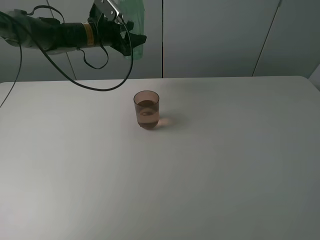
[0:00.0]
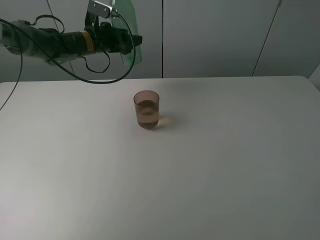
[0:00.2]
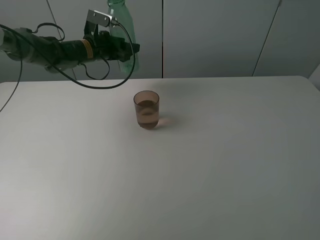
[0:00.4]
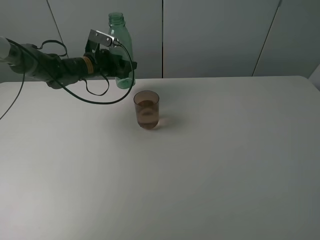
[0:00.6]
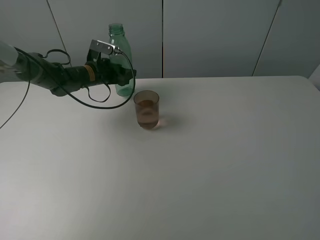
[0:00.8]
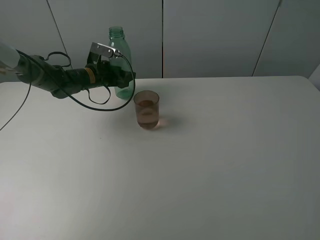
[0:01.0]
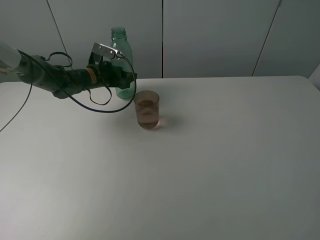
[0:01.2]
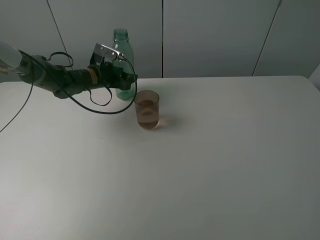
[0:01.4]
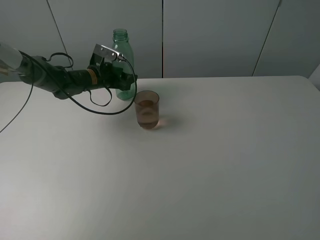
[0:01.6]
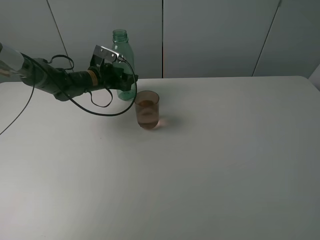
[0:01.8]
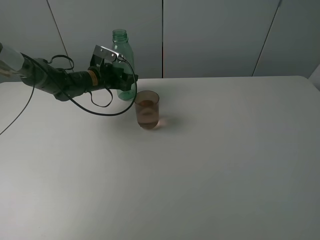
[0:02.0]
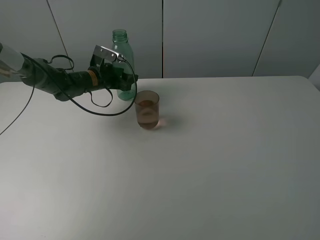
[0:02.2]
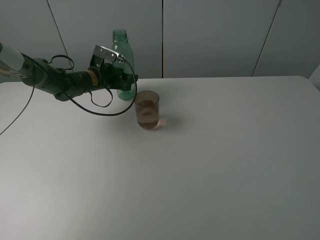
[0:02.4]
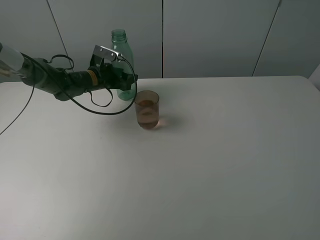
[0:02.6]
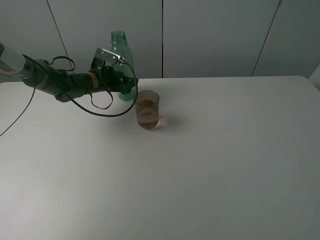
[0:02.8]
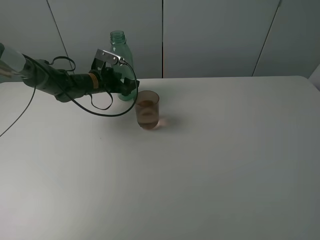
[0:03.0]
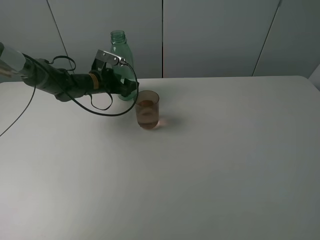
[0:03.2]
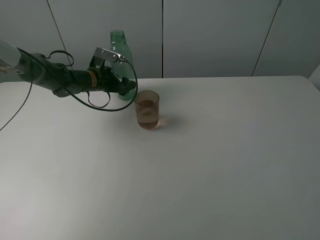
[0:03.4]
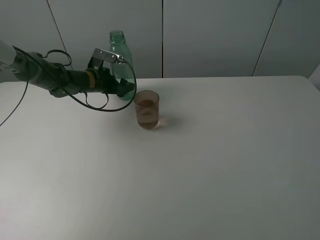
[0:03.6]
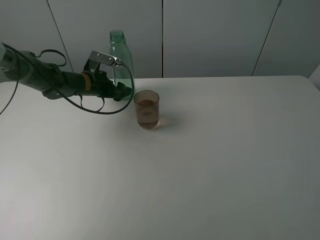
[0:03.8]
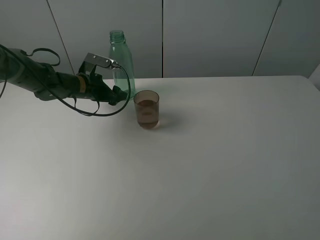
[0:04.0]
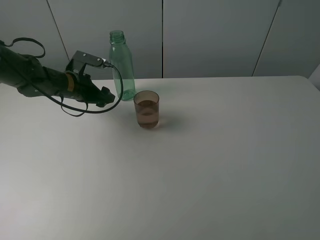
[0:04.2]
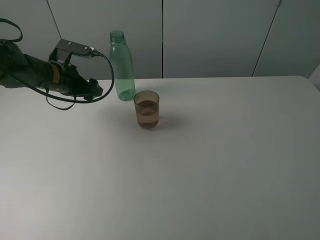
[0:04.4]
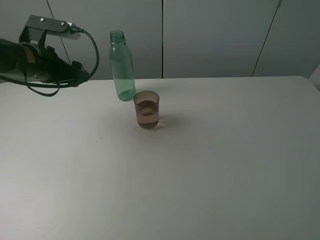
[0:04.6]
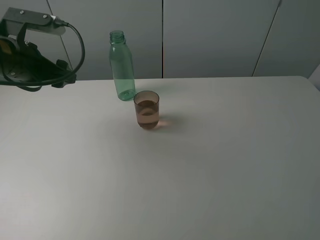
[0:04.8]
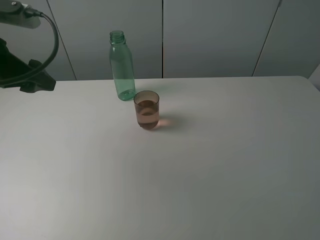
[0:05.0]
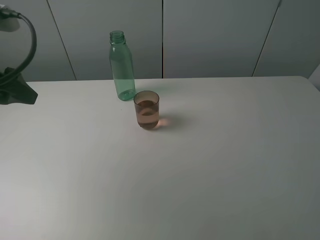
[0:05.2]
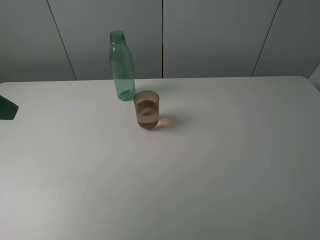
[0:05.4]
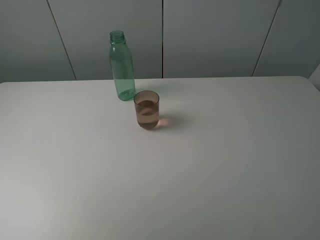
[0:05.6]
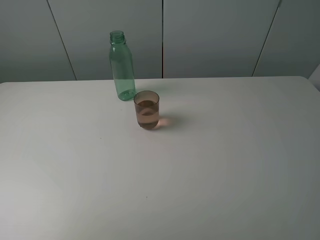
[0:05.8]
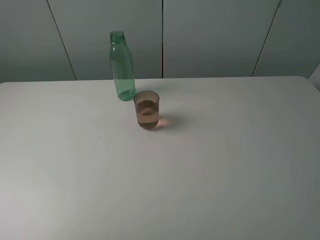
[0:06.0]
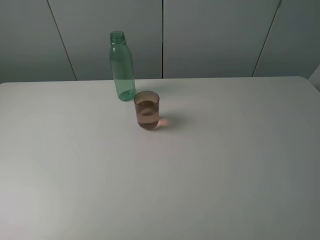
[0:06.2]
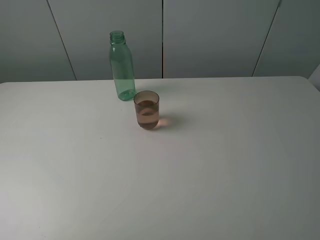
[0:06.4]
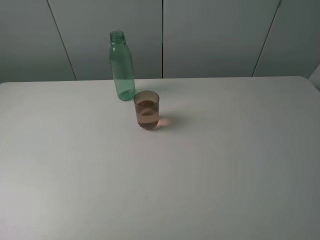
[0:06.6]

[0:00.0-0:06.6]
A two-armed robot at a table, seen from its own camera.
Task of the whole recording: pick up the bottle filled with water and pour it into the pink cup.
Step, 0:00.0 to 0:03.6: Place the green bottle with the left gripper.
0:00.0 to 0:01.6: The left gripper heads downward, covering roughly 10 cm.
0:01.6 to 0:03.2: The left gripper opens its fingers.
0:03.2 to 0:05.0: The left gripper heads backward, upward and to the left, covering about 30 cm.
0:05.0 to 0:06.6: The left gripper shifts approximately 25 cm backward.

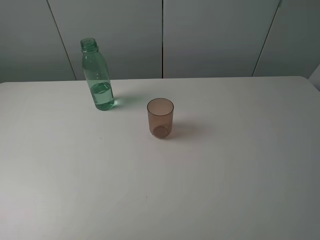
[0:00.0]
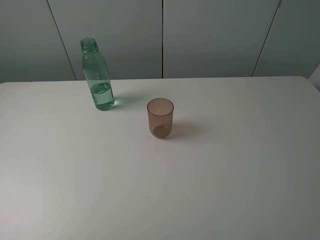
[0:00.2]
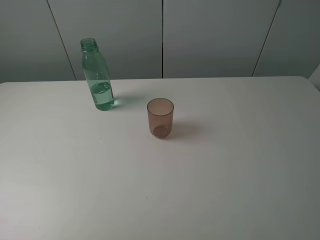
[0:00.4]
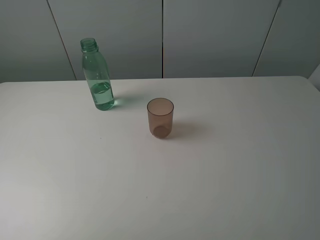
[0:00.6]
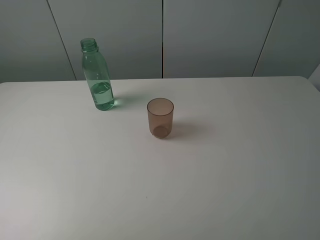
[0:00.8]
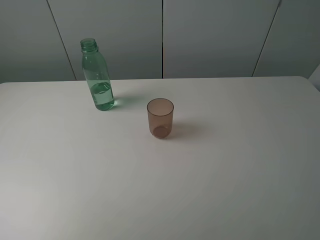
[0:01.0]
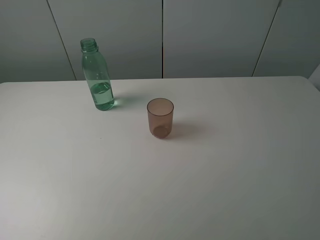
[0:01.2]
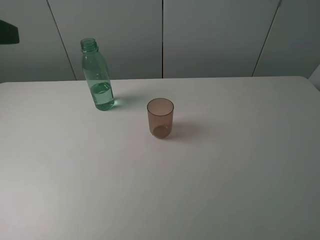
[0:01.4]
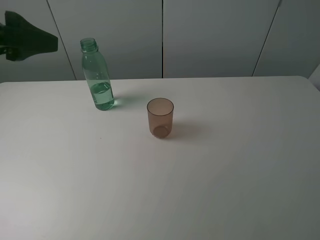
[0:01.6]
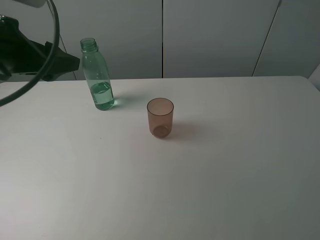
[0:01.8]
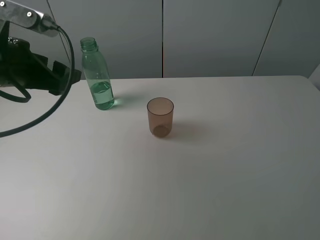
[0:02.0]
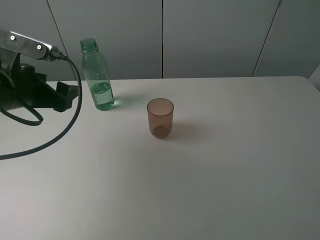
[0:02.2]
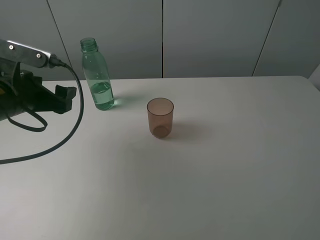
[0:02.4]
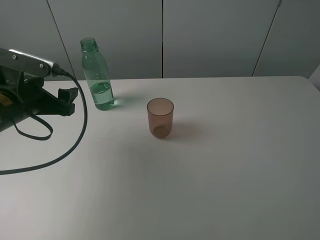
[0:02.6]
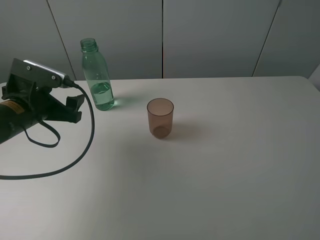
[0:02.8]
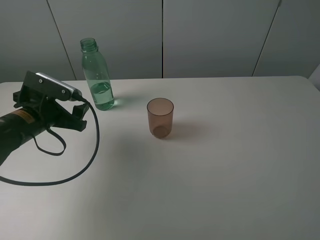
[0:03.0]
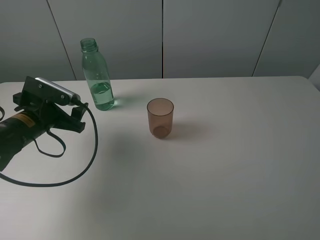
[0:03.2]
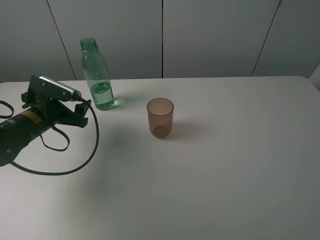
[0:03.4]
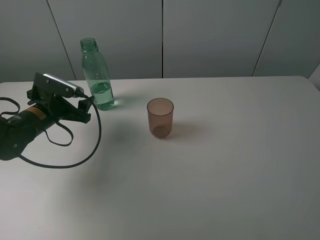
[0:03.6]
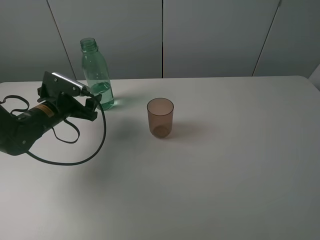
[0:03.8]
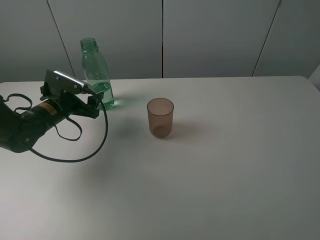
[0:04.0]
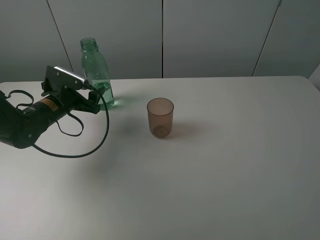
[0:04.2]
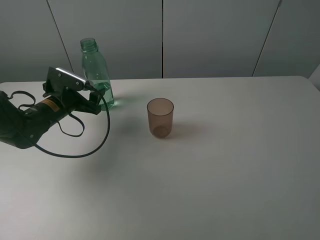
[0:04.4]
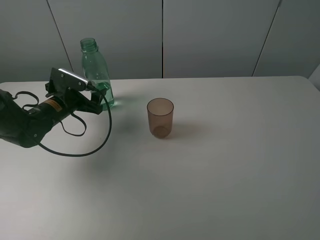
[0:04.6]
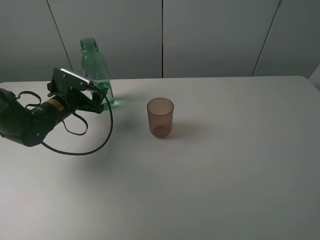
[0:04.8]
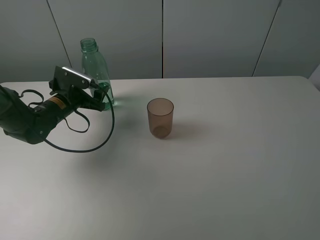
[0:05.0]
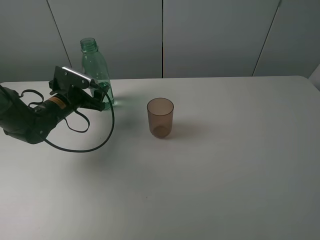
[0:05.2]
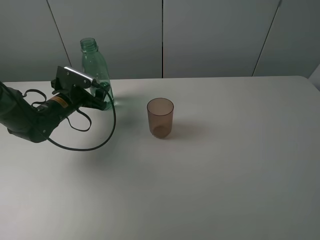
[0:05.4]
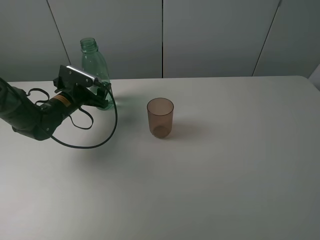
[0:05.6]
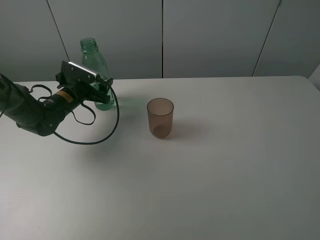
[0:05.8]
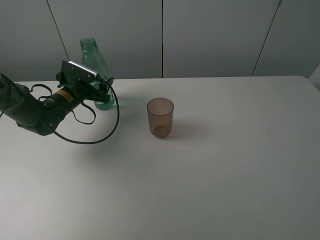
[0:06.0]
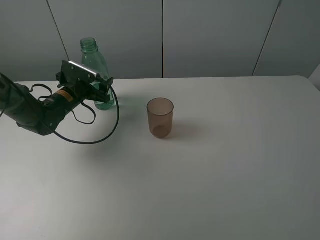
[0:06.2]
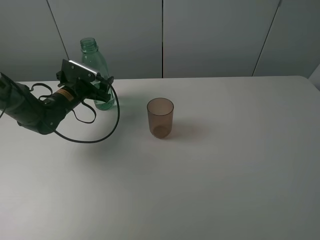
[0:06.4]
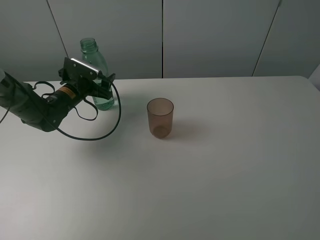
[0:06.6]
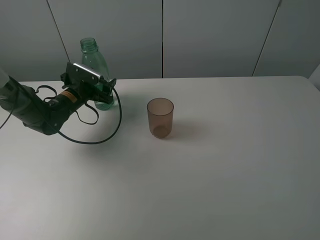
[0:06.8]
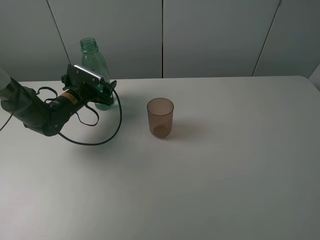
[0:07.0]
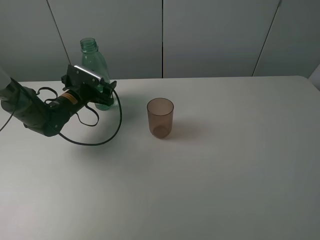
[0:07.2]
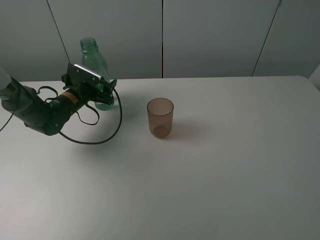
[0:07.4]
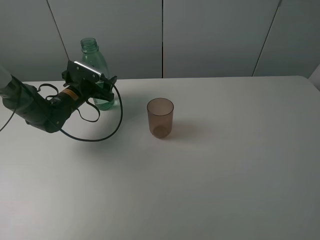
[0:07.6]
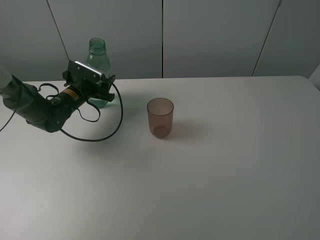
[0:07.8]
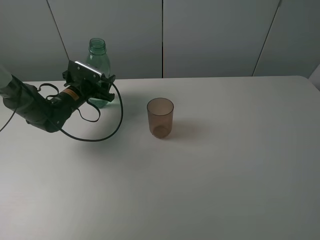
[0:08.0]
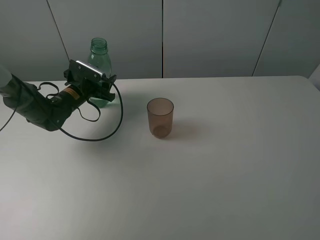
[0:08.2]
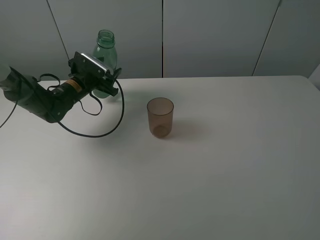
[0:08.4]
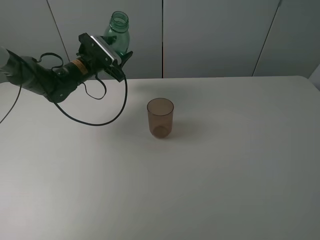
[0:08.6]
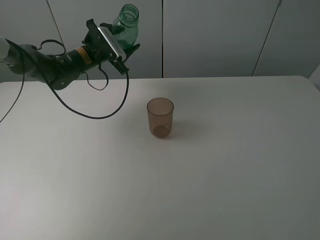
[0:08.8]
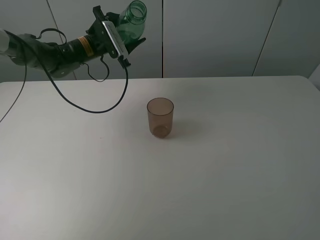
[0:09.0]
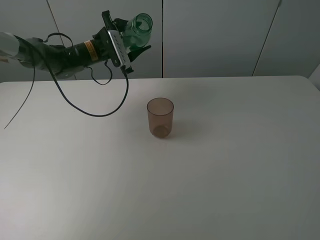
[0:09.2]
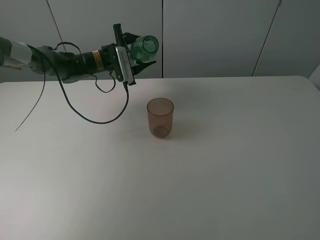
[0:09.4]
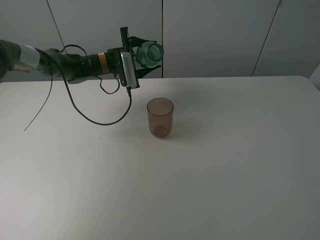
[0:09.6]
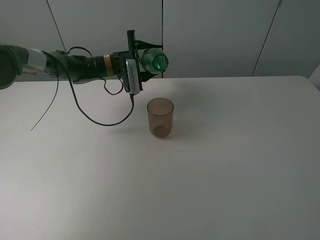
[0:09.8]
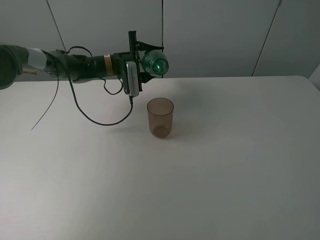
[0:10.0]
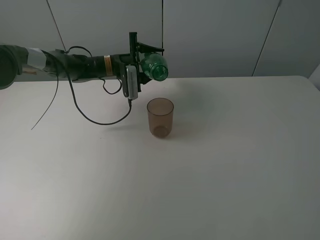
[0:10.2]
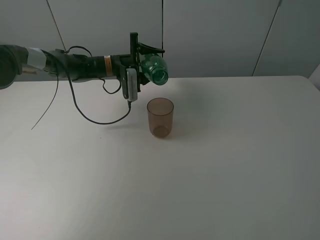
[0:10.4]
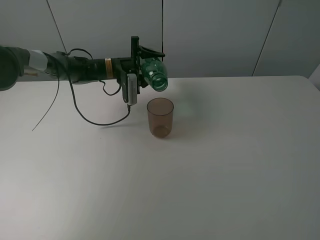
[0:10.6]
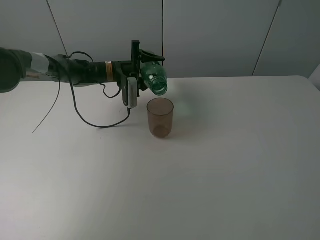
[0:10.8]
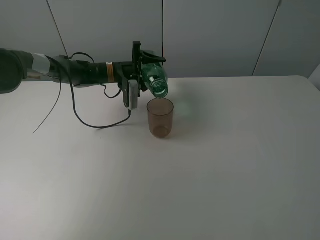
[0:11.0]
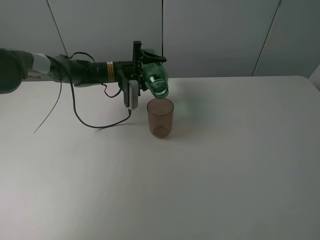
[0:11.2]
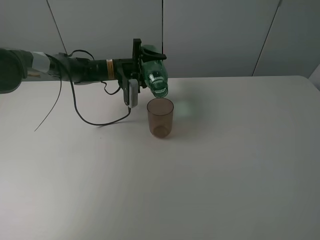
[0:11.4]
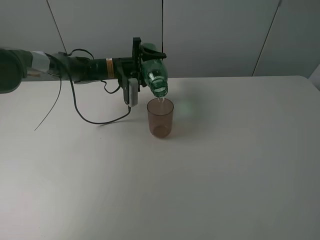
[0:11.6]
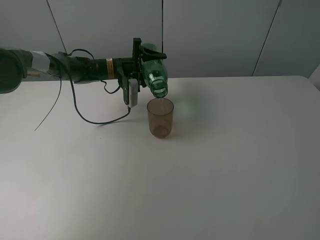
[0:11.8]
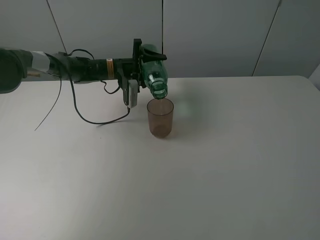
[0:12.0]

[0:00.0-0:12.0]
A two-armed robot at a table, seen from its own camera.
Task of the whole recording: pick up the bottle filled with water and pour it into the pink cup.
Step, 0:00.0 to 0:08.2: Grasp the green bottle with the left gripper.
0:00.0 to 0:01.6: The left gripper goes approximately 20 cm forward.
0:01.6 to 0:03.0: The left gripper is displaced downward by about 20 cm.
0:03.0 to 0:04.4: The left gripper goes approximately 10 cm forward.
0:04.4 to 0:06.0: The left gripper shifts by roughly 5 cm.
0:06.0 to 0:07.6: The grippers stay close to where they were, moving slightly.
0:07.6 to 0:09.0: The left gripper goes some 15 cm upward, forward and to the right, and closes.
0:09.0 to 0:10.4: The left gripper shifts roughly 5 cm downward.
0:10.4 to 0:12.0: The grippers stay close to where they were, moving slightly.

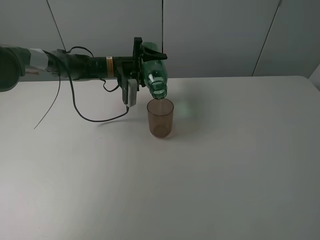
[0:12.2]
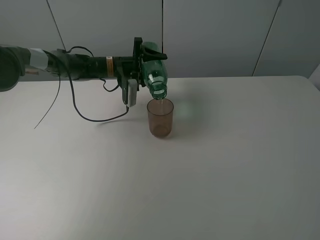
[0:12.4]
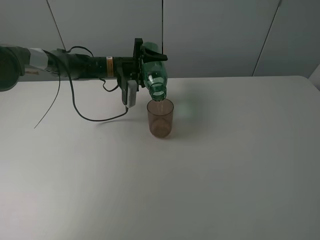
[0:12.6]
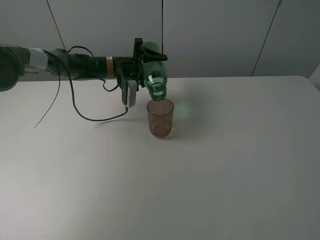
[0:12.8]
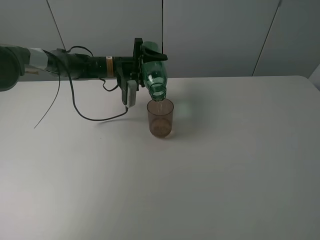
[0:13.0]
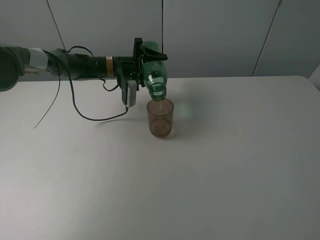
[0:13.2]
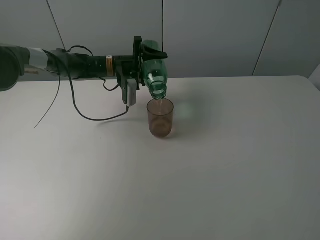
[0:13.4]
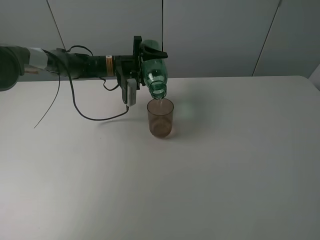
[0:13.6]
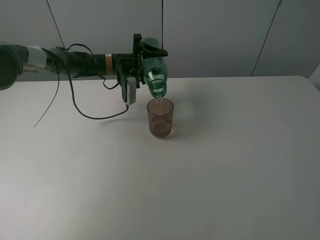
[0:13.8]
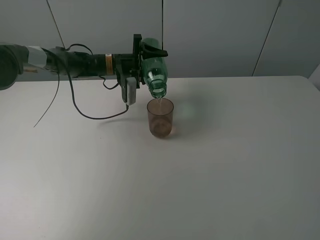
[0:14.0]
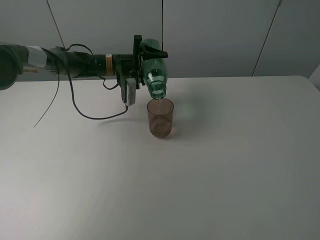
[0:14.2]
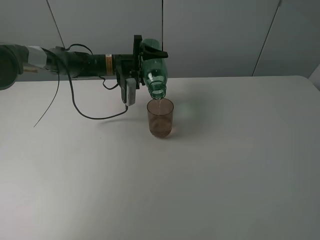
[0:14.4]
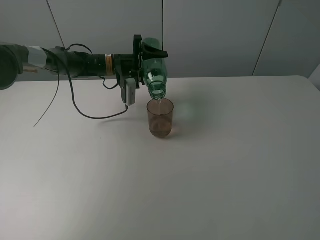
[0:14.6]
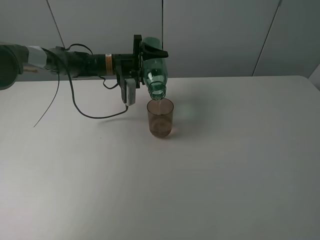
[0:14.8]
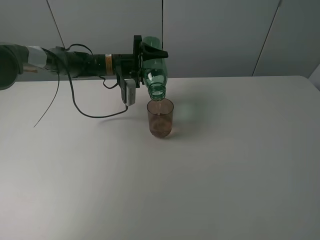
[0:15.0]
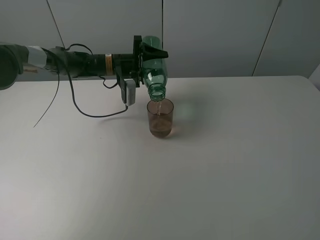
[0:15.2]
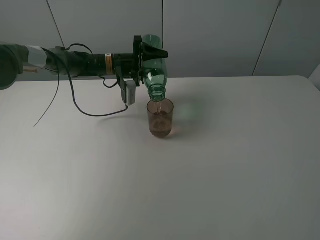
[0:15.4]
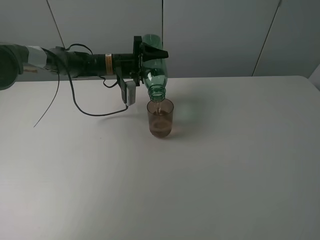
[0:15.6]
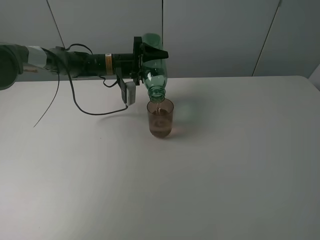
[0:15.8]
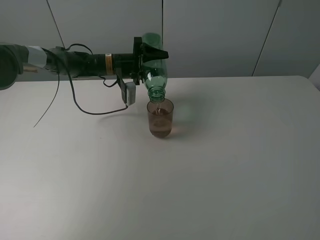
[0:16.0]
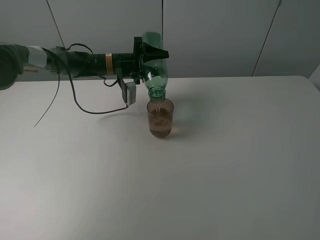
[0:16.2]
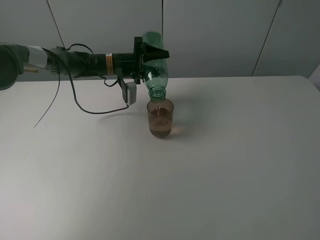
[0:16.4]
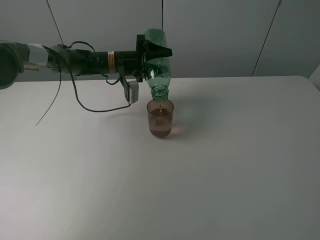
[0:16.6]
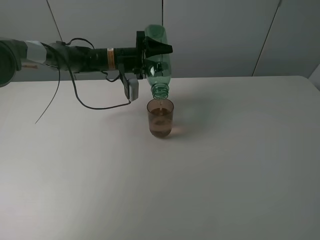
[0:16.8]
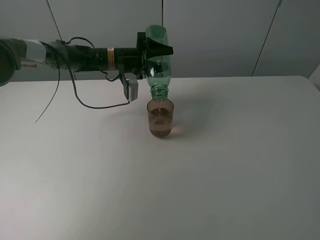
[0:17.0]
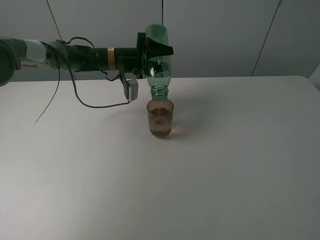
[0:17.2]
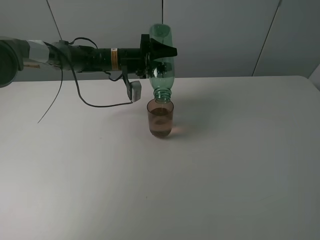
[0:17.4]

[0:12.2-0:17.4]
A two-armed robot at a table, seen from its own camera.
Task of the whole recording: pick up the bottle filled with water and pour it into the pink cup.
0:12.2 to 0:14.0: The two grippers keep their place.
0:14.0 to 0:15.6: There are only small adjustments of the grippers.
0:15.6 to 0:17.4: The grippers move only a little.
